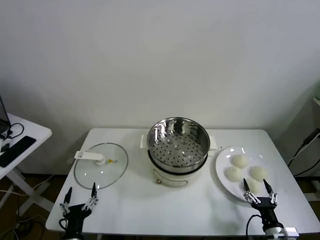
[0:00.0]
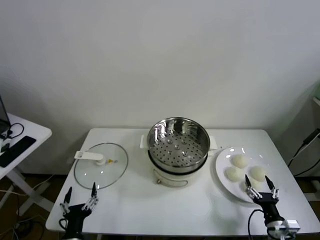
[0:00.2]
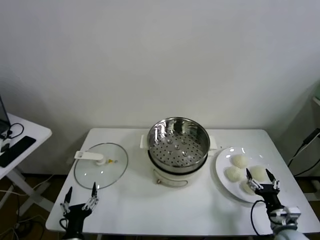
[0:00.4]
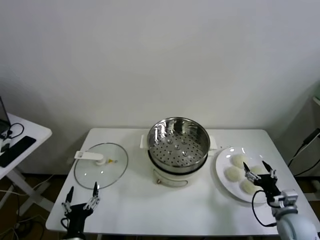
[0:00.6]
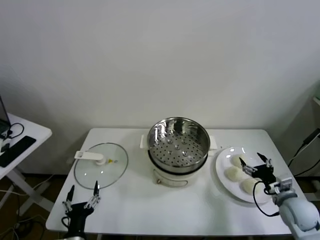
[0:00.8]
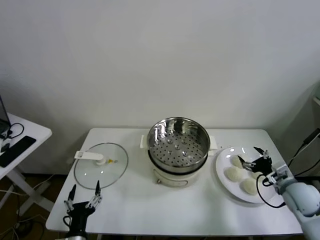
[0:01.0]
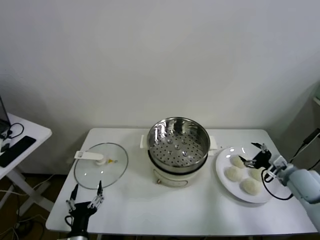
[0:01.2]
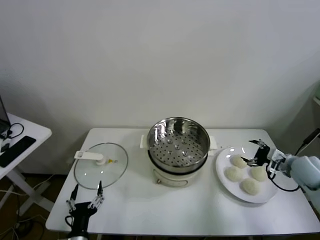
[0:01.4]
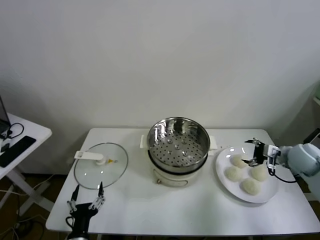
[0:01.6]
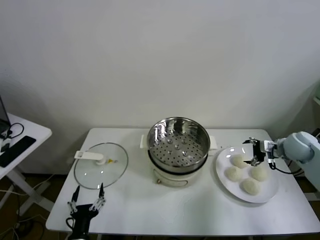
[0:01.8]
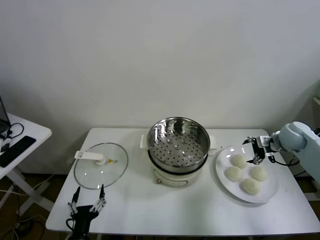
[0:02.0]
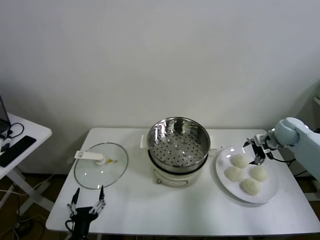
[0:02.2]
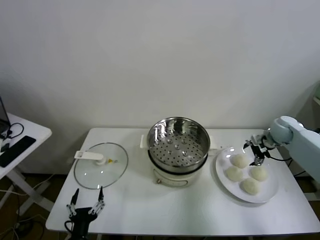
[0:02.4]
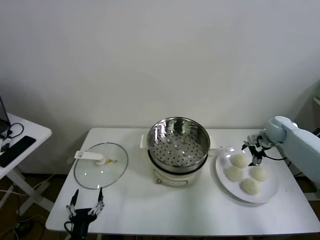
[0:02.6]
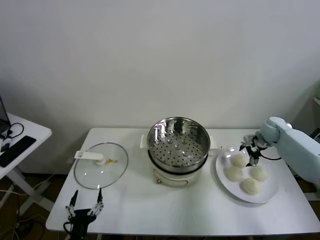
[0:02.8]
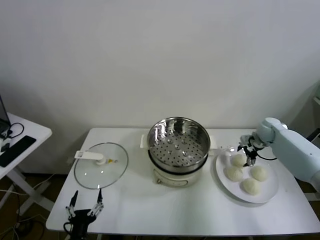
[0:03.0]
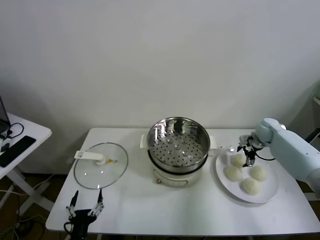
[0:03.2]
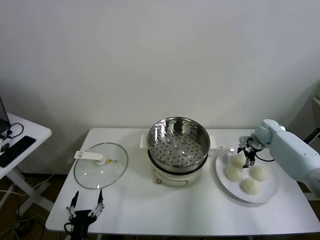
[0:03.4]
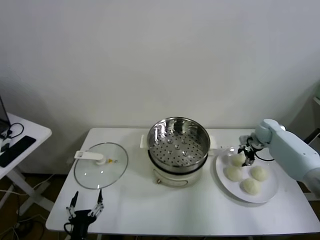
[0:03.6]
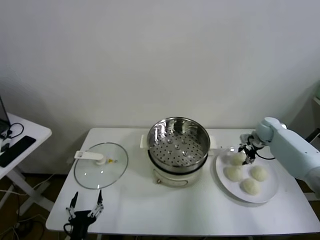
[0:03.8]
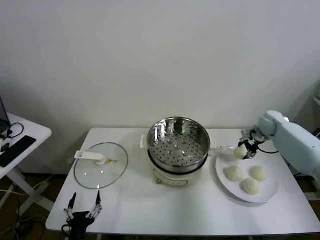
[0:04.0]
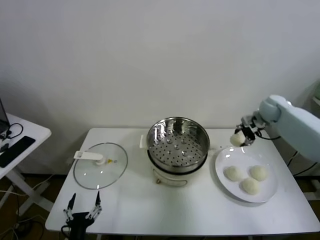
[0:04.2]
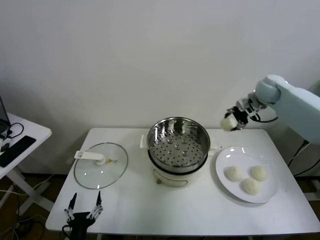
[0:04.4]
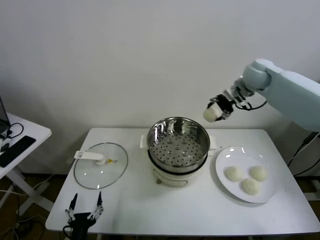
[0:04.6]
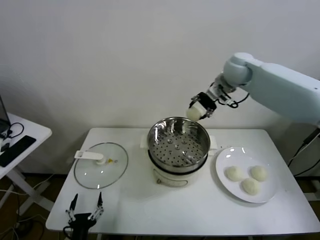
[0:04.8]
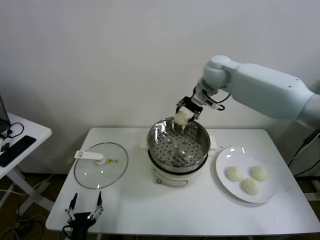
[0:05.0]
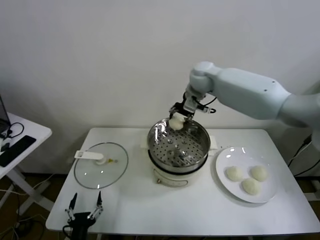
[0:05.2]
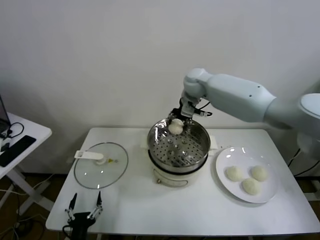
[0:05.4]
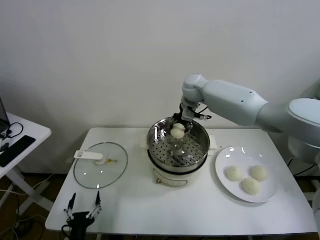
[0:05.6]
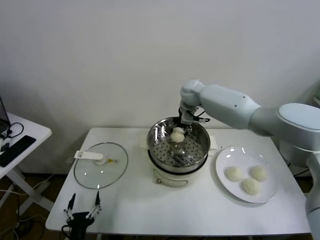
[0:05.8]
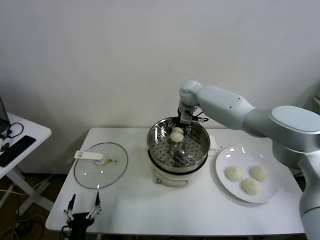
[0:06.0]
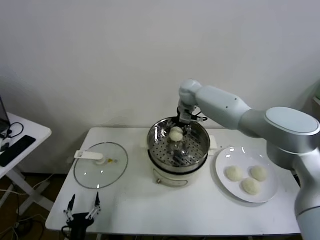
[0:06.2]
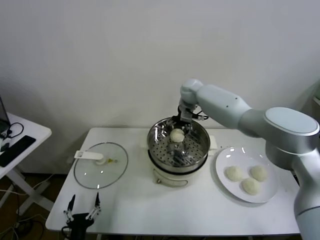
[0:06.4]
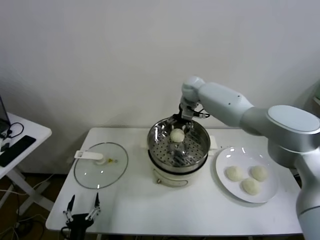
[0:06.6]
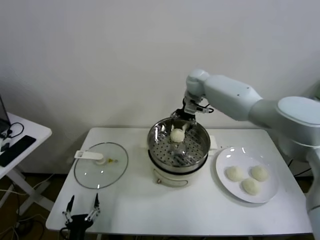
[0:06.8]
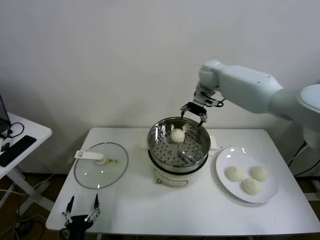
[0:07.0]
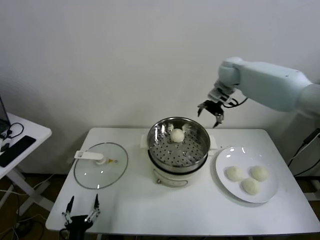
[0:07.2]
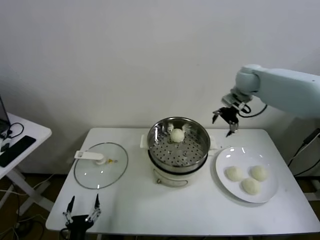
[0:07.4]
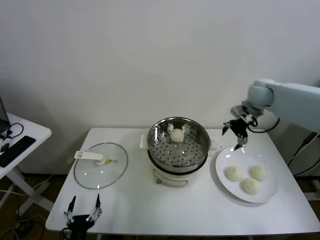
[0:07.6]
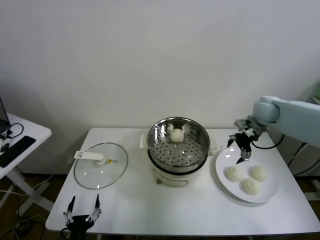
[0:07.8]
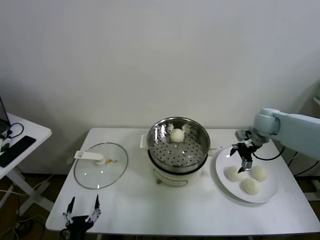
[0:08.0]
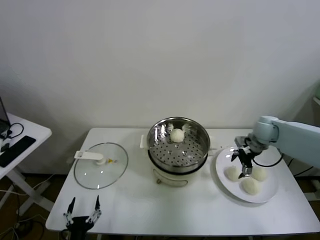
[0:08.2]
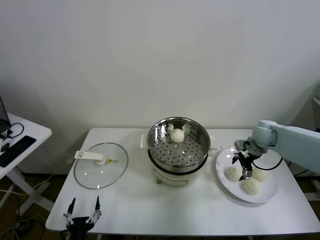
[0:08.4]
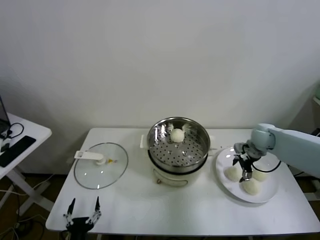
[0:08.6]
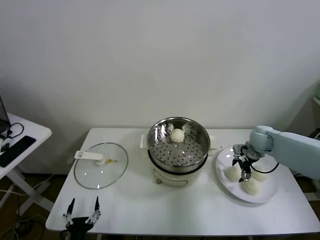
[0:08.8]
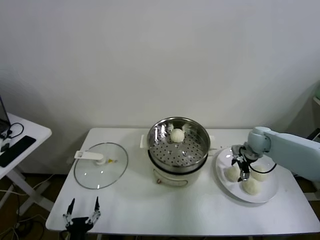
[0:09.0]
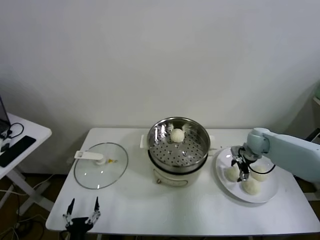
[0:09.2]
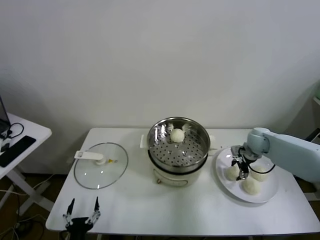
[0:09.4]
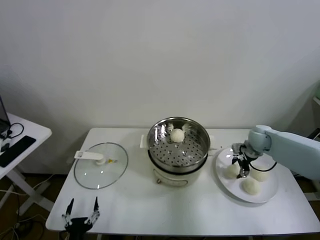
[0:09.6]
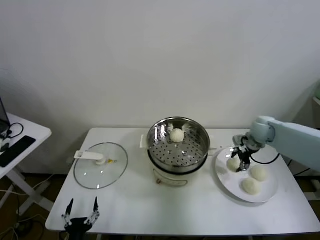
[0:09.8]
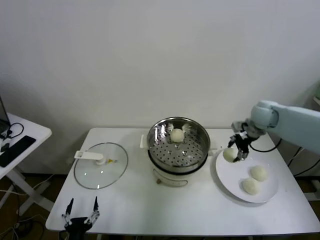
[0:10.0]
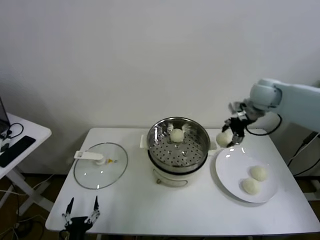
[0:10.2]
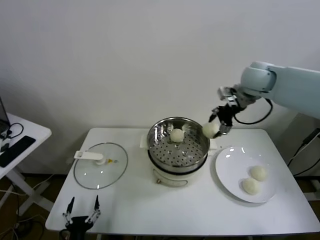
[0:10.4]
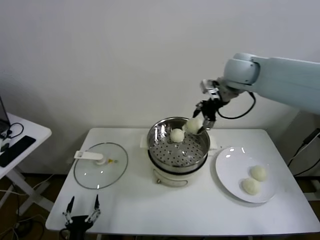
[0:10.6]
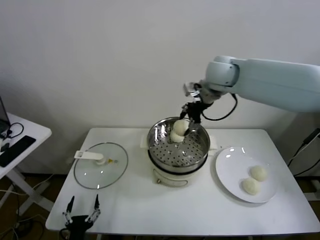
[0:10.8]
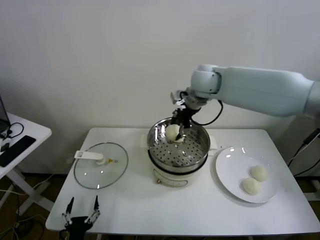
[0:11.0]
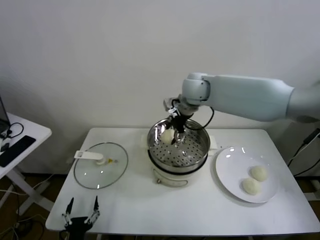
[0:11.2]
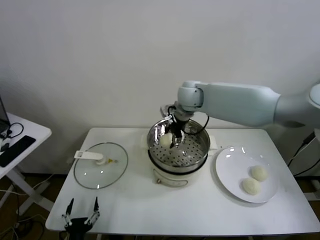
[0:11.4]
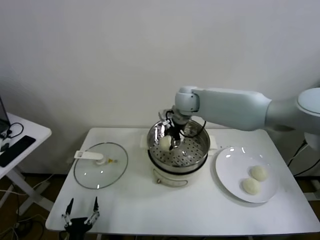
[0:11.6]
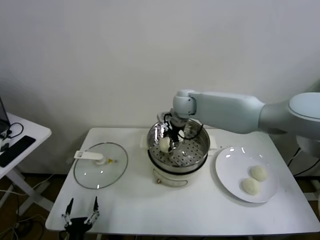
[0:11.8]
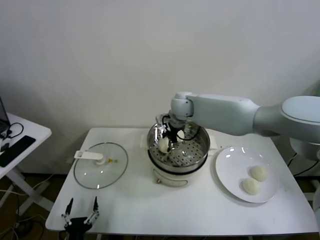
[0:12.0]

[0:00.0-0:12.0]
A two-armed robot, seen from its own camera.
Task of the whole recording: take steamed baozi put them in steamer.
Step, 0.0 to 3.4 s: Grasp the baozi in the plate with right gripper.
Step, 3.6 to 6.4 s: Place the baozi on the steamer with right gripper.
Step, 6.6 to 9.2 s: Grasp the baozi in the plate with right gripper.
1.6 to 3.0 s: The right gripper goes roughly 15 cm forward.
3.0 to 4.4 s: The right gripper moves upward and to the left, approximately 25 cm, and closes its fingers.
4.4 to 6.0 s: The right gripper moves to the left, some 25 cm.
6.0 to 7.6 s: The right gripper is displaced to the right by roughly 25 cm, and opens up.
7.6 to 9.0 s: The right gripper goes approximately 15 cm downward.
9.0 to 10.4 s: The right gripper moves upward and to the left, approximately 30 cm, and closes its fingers.
10.4 to 12.0 s: The right gripper shifts approximately 25 cm to the left and downward.

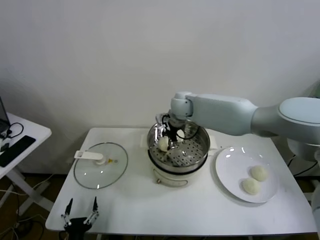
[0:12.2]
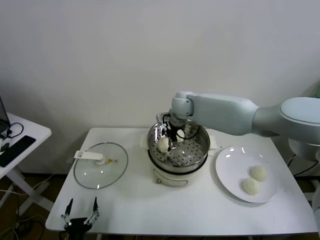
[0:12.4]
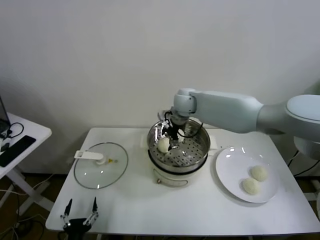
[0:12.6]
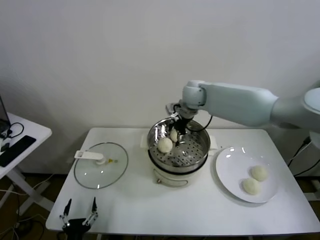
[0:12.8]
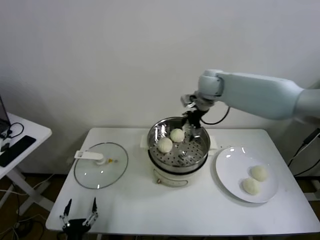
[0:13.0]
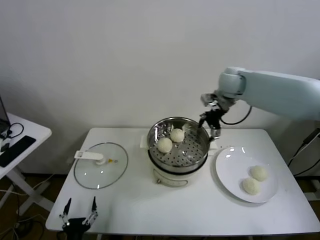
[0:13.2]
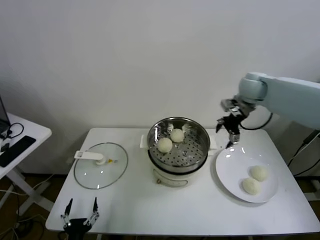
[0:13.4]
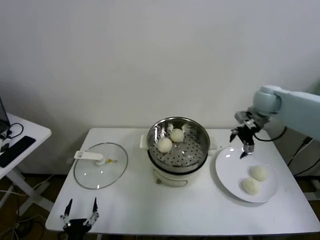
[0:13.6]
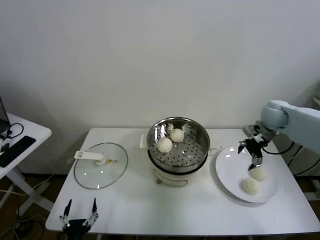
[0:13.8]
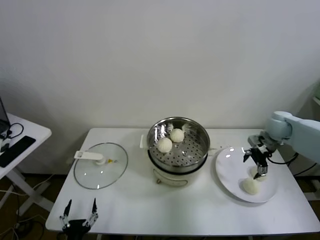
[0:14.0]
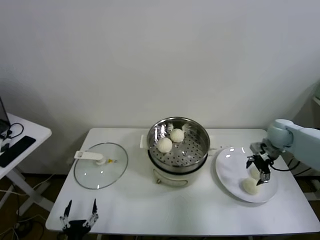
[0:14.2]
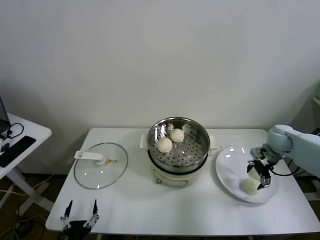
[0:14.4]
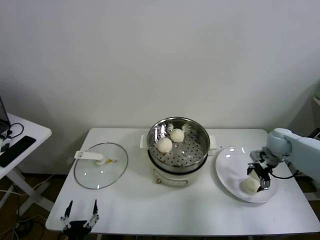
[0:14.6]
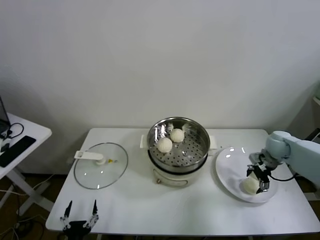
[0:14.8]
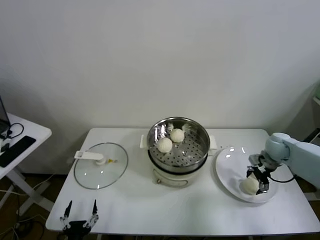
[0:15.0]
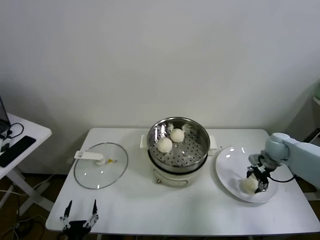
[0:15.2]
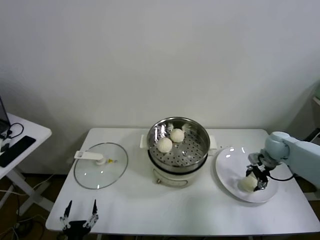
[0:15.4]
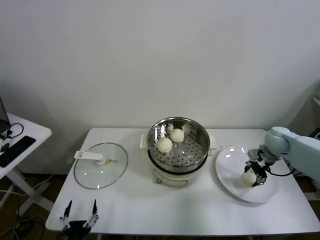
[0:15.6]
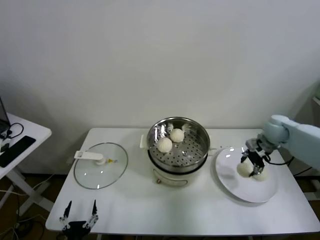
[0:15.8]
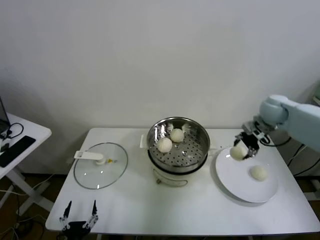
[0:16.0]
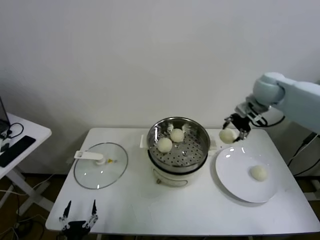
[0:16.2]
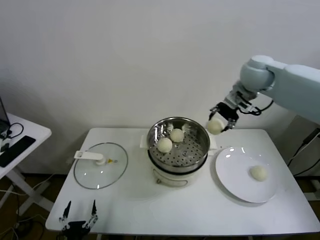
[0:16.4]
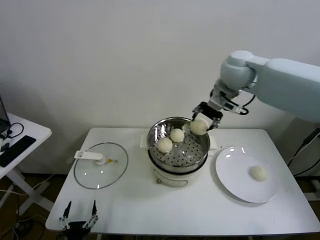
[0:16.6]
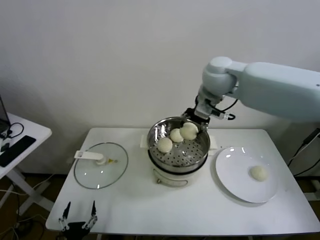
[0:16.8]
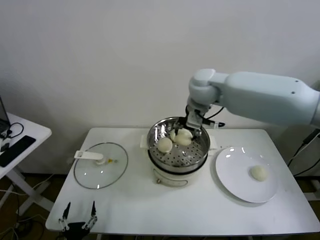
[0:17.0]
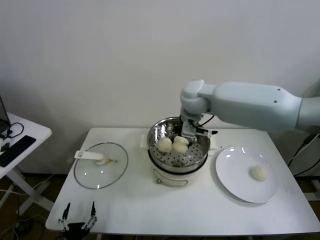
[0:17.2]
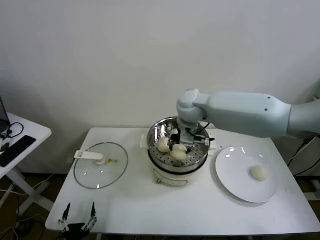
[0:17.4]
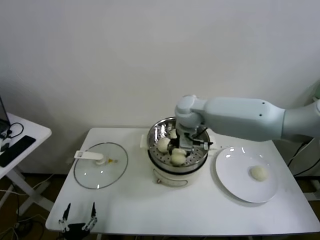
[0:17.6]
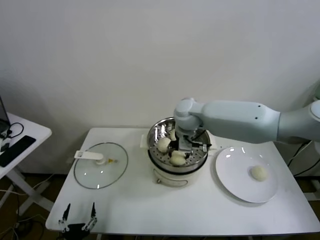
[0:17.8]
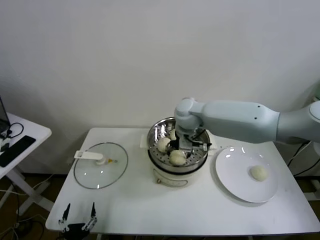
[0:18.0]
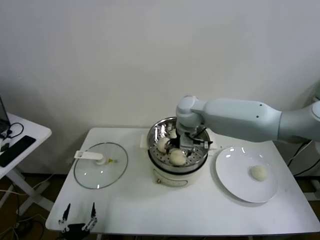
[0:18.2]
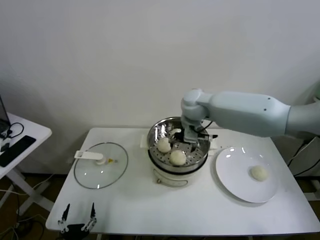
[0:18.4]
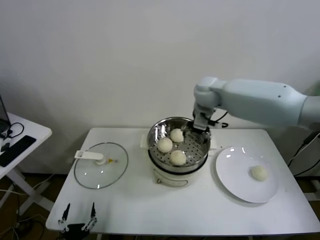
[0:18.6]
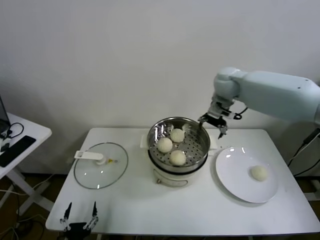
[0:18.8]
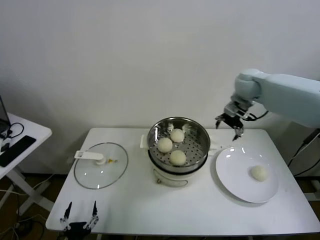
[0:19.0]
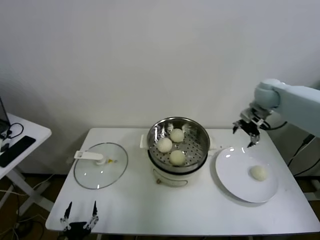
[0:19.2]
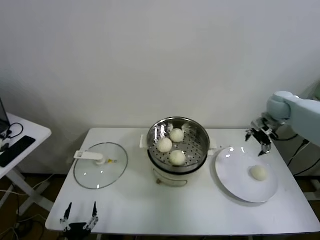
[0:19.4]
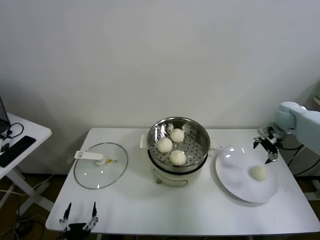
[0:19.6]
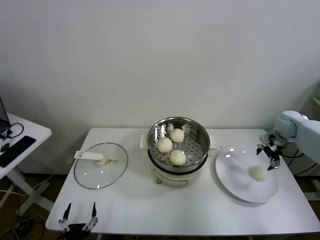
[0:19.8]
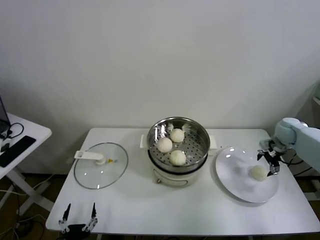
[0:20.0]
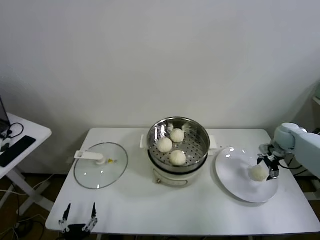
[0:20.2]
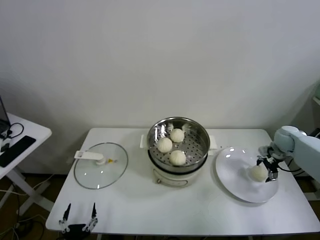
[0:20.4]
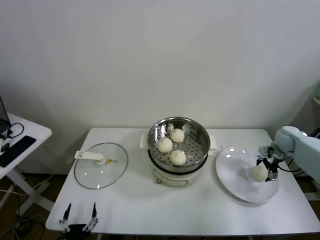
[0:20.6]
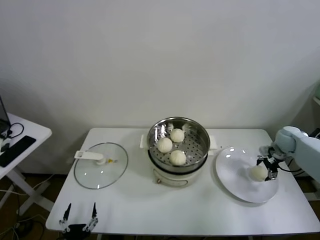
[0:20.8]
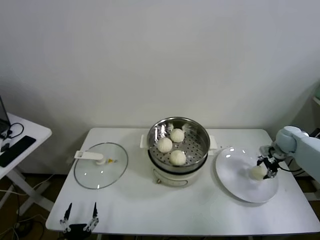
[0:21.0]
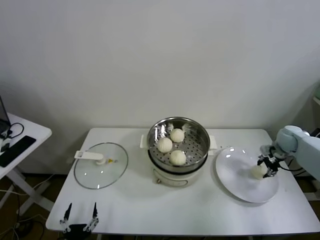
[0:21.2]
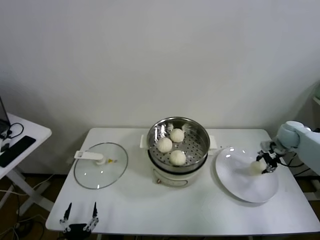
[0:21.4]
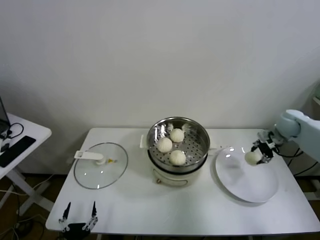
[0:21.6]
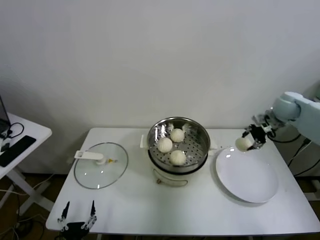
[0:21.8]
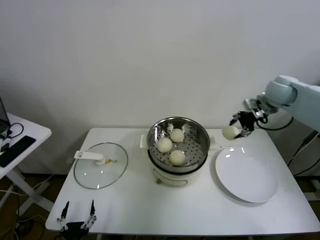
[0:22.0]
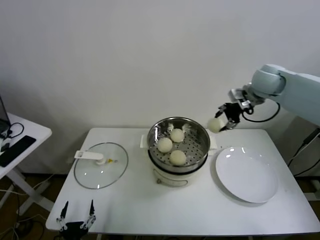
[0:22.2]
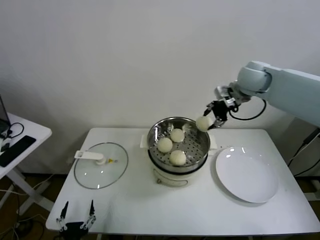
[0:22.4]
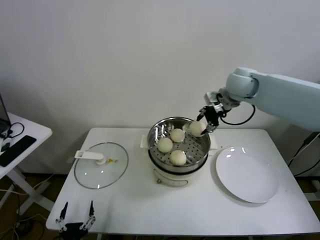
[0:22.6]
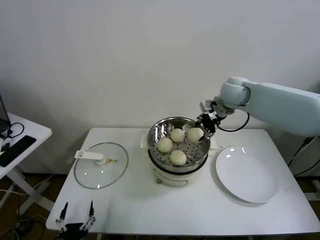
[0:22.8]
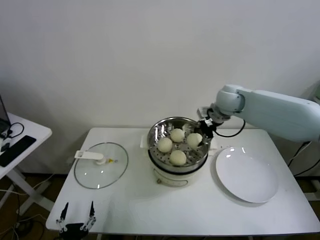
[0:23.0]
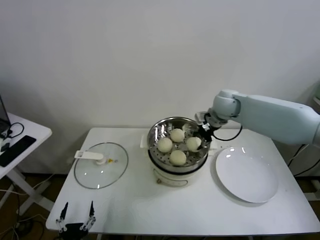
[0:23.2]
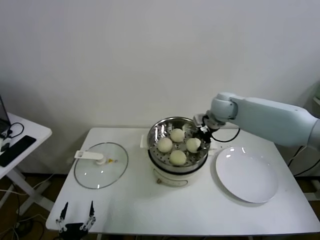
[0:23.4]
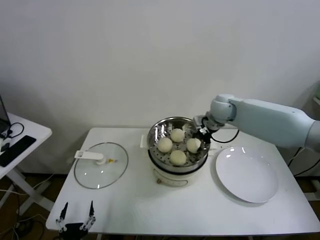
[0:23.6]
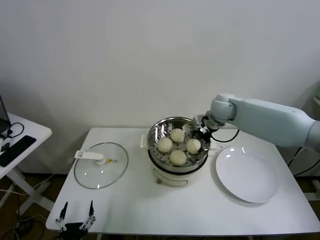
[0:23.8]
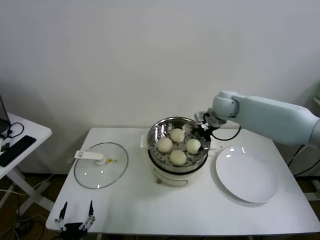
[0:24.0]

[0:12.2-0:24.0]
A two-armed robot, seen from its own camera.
Task of the whole recording: take steamed baozi put them in steamer.
Step, 12.6 to 15.0 s: Grasp the baozi in the plate with right gripper.
Step, 15.2 to 18.0 s: Place the baozi on the steamer with right gripper.
Step, 18.2 to 20.8 s: Grasp the baozi in the plate with right gripper.
Step, 21.0 to 23.8 s: Place the baozi on the steamer with right gripper.
12.2 to 13.6 s: The right gripper travels to the right by approximately 30 cm, and opens up.
13.6 to 15.2 s: The right gripper goes roughly 20 cm downward, to the right and backward.
15.2 to 16.6 s: The right gripper goes roughly 35 cm upward and to the left, and closes its fingers.
16.6 to 18.2 s: The right gripper moves downward and to the left, roughly 20 cm, and opens up.
18.2 to 19.6 s: The right gripper is displaced to the right by approximately 35 cm.
19.6 to 21.0 s: The right gripper moves downward, about 10 cm, and closes its fingers.
21.0 to 22.6 s: The right gripper goes approximately 35 cm to the left and upward, and closes its fingers.
22.6 to 24.0 s: The right gripper travels downward by about 10 cm, and opens its fingers.
